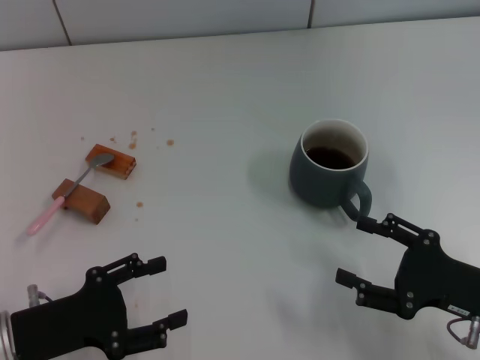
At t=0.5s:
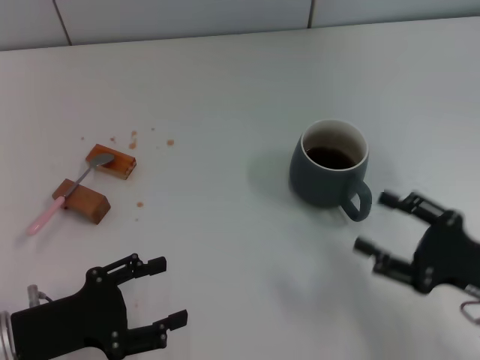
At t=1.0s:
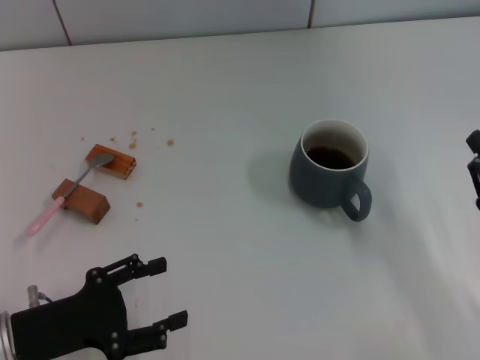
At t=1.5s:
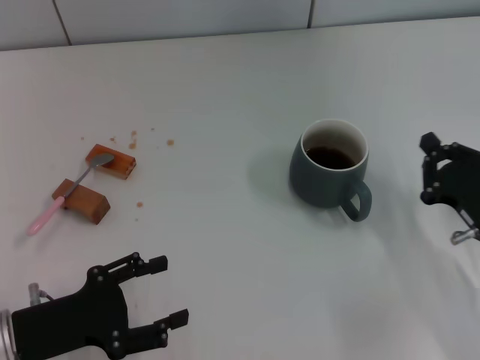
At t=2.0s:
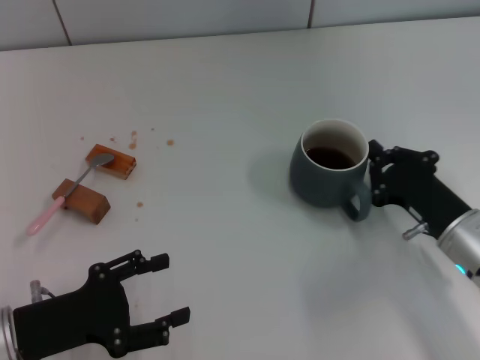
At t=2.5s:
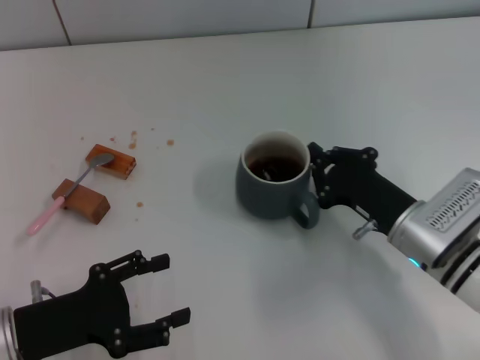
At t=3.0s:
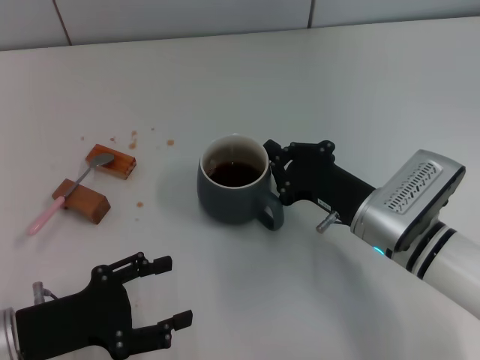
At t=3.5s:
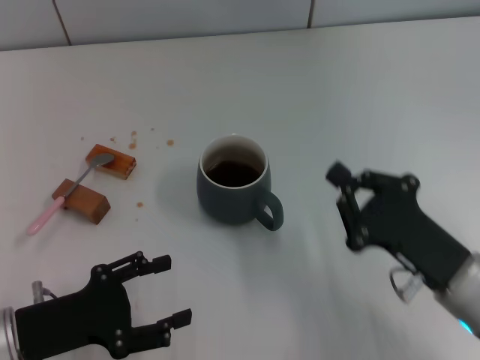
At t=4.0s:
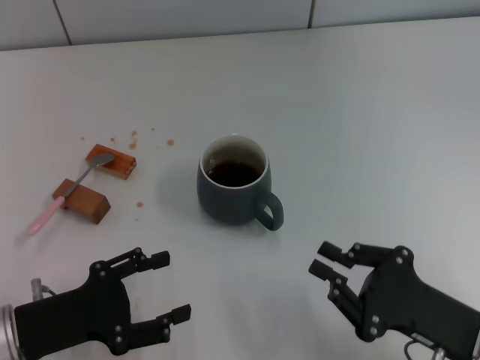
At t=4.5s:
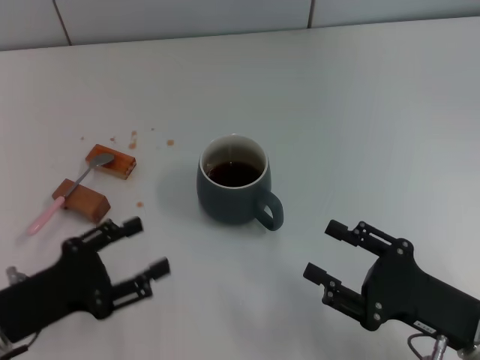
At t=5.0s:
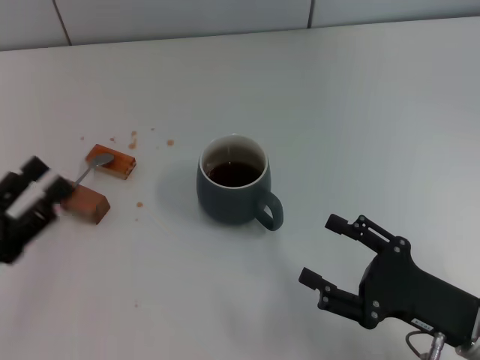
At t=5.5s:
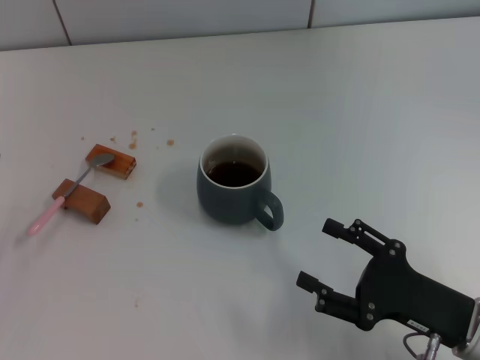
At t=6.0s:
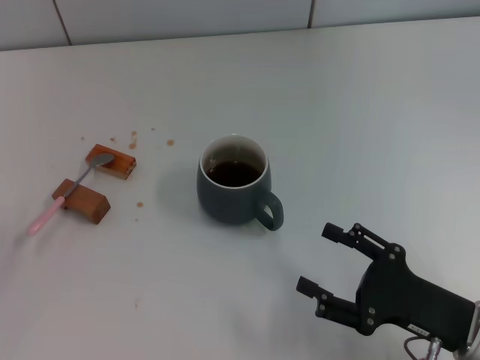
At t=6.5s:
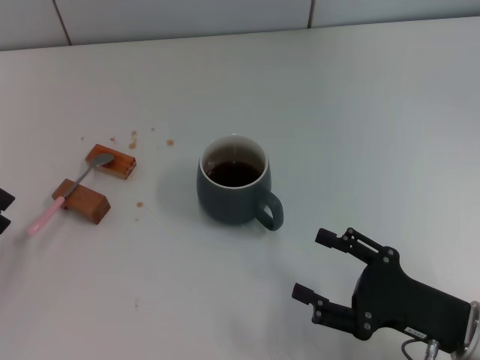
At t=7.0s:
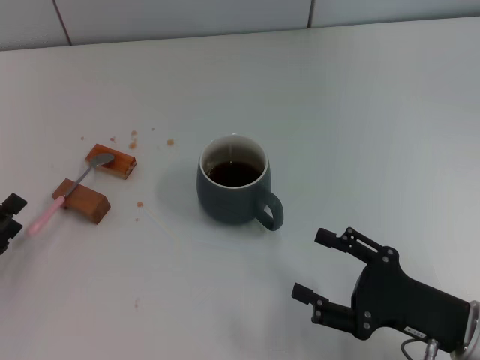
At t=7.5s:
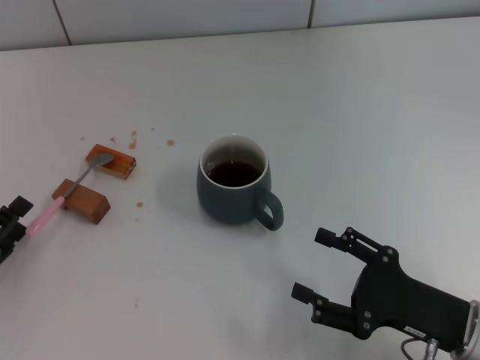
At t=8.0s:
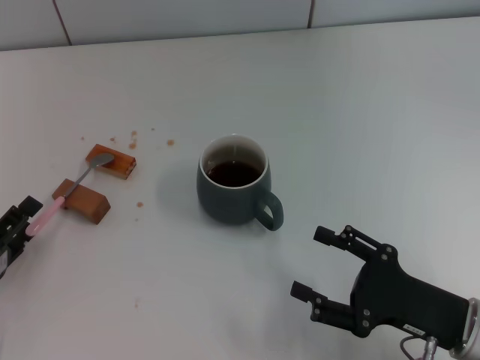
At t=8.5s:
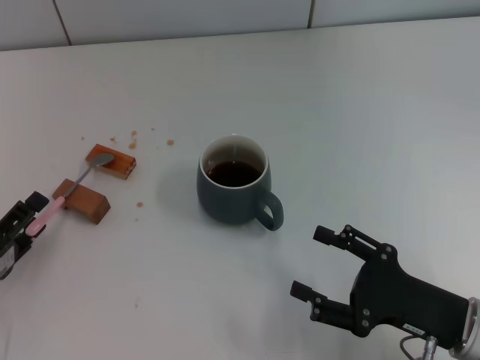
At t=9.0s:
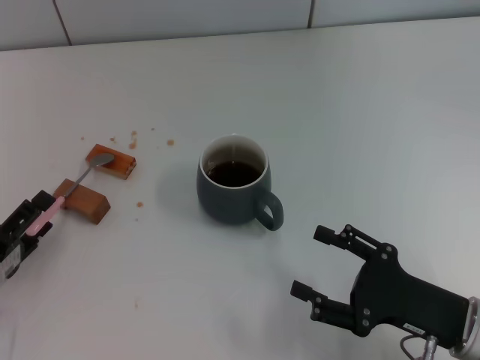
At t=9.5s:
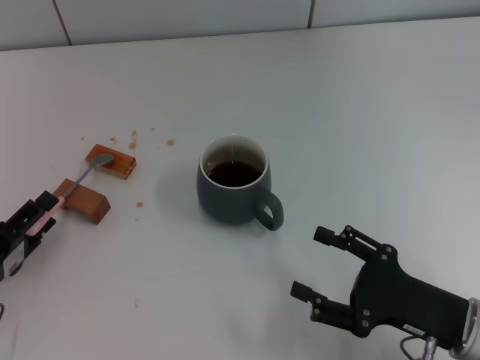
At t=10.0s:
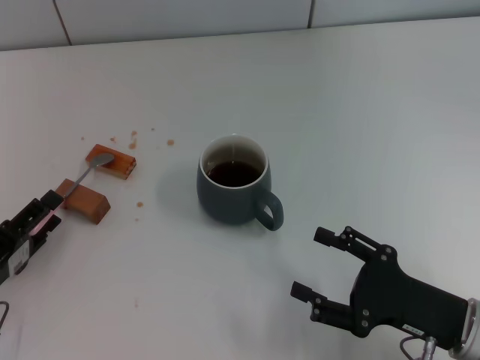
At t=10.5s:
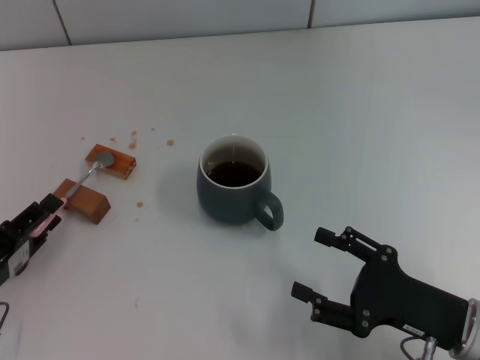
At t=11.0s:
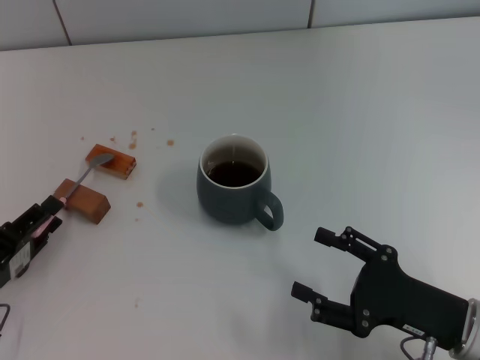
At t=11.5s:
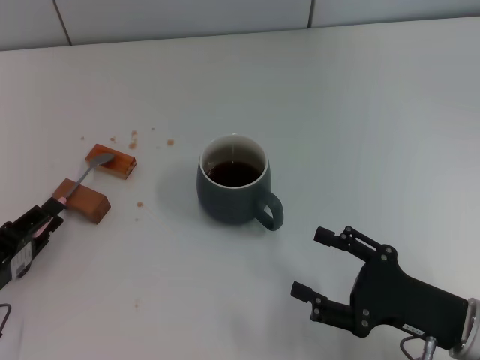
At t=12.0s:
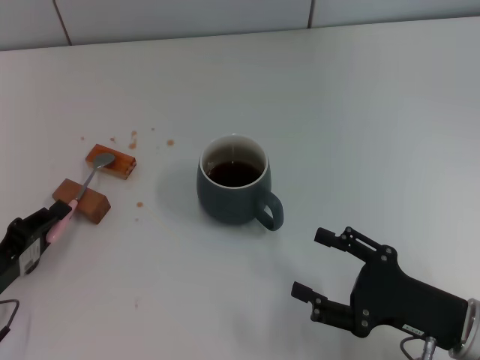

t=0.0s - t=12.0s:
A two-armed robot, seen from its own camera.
Task of the whole recording: Move the grey cup to the center, lift the pink spoon, stir it three times in the cup, and put the spoon into the cup.
Step, t=0.0s - t=3.0s: Move the cup with coffee to the center of view with the right gripper.
t=0.0s - t=2.0s: The right gripper is displaced forward by approximately 5 cm, and closes up.
t=2.0s - t=4.0s: The right gripper heads backward, covering approximately 10 cm.
t=4.0s - t=6.0s: The left gripper is displaced to the left by about 10 cm; the right gripper opens its fingers.
t=6.0s - t=10.0s: The grippers make only small movements.
t=10.0s - t=12.0s: The left gripper closes its fingers.

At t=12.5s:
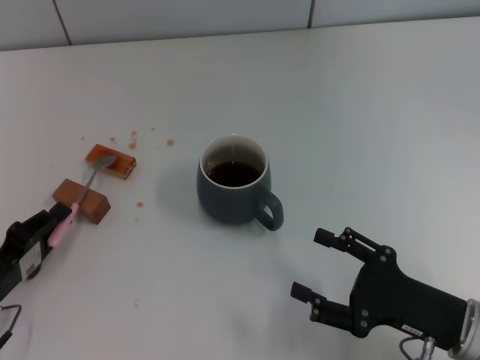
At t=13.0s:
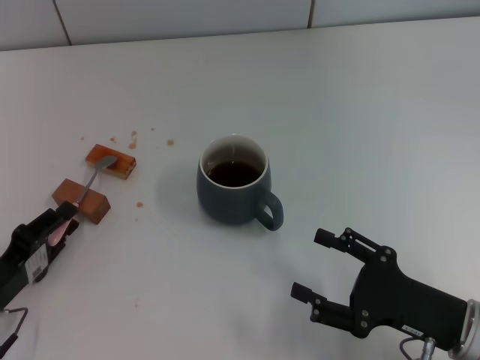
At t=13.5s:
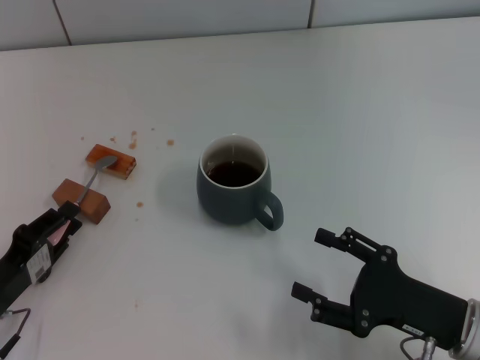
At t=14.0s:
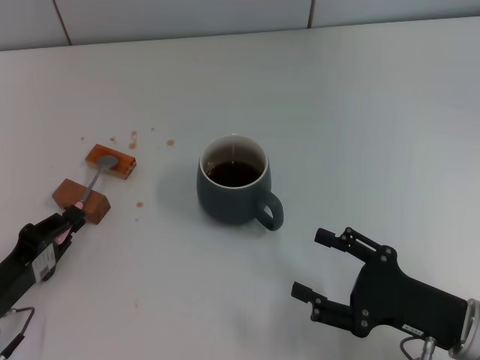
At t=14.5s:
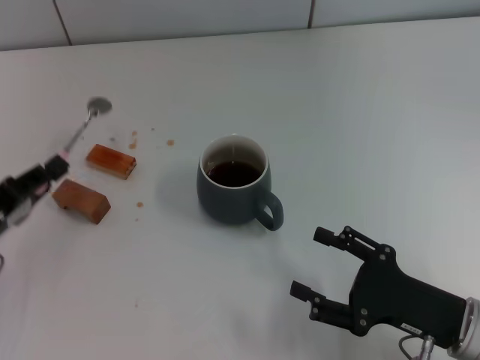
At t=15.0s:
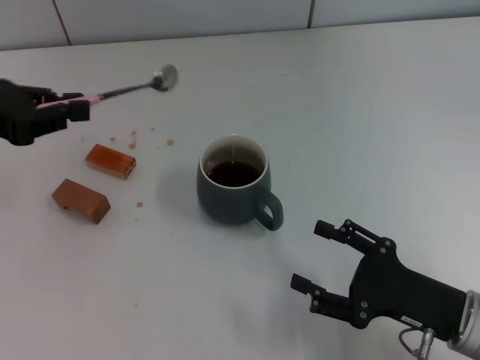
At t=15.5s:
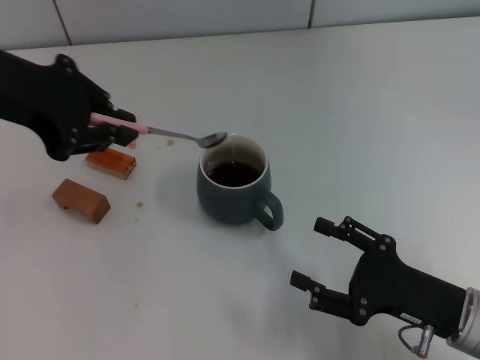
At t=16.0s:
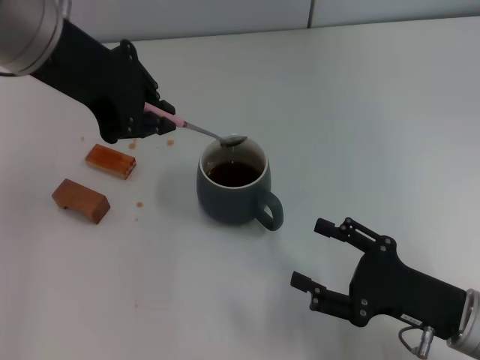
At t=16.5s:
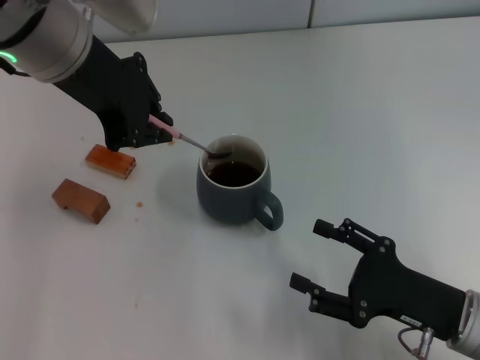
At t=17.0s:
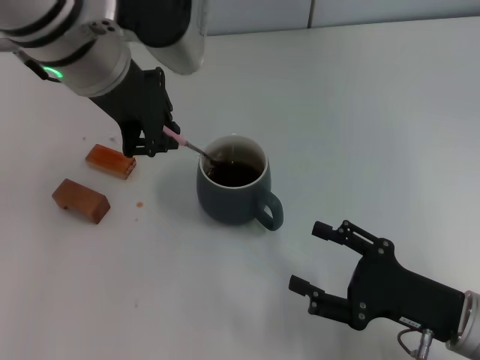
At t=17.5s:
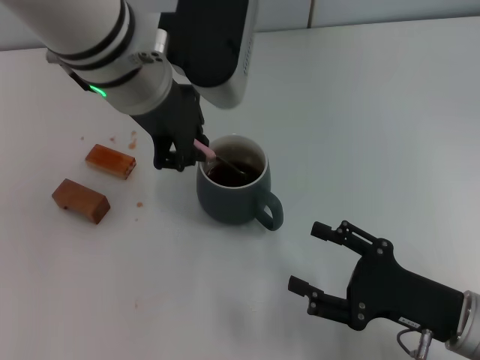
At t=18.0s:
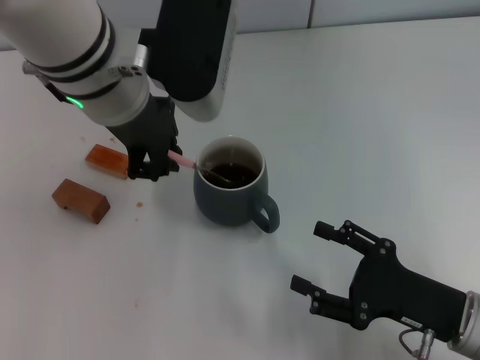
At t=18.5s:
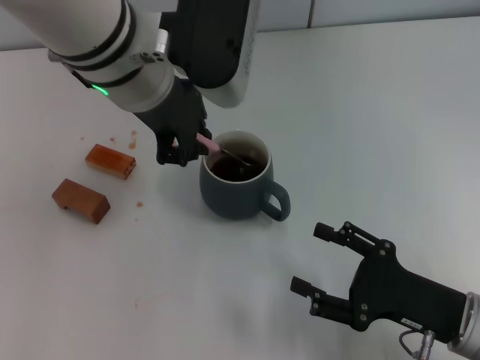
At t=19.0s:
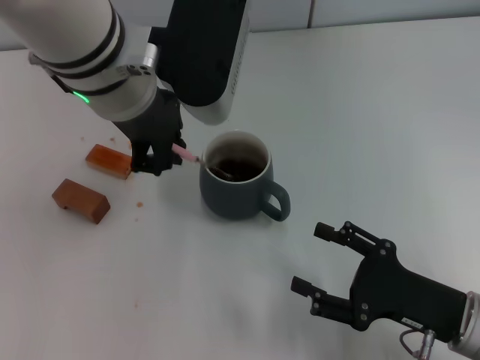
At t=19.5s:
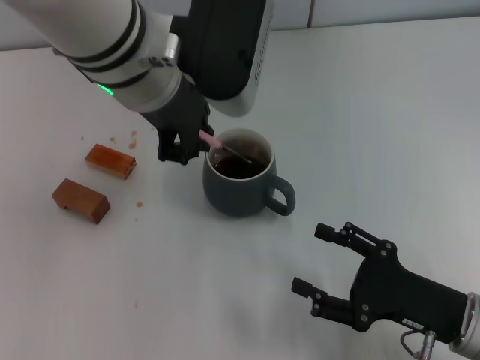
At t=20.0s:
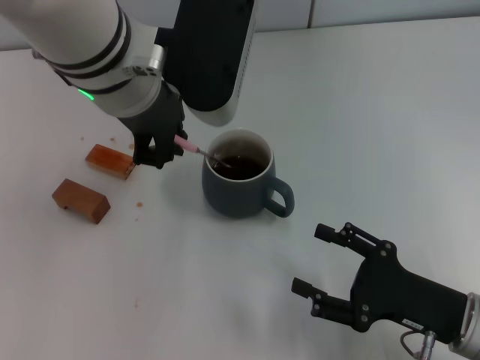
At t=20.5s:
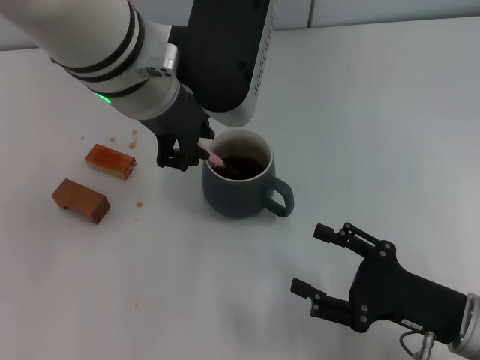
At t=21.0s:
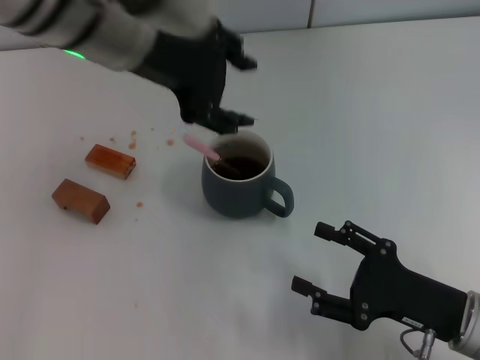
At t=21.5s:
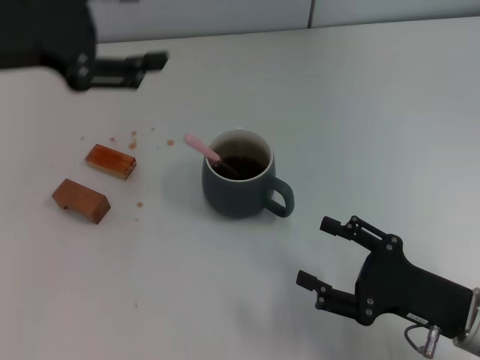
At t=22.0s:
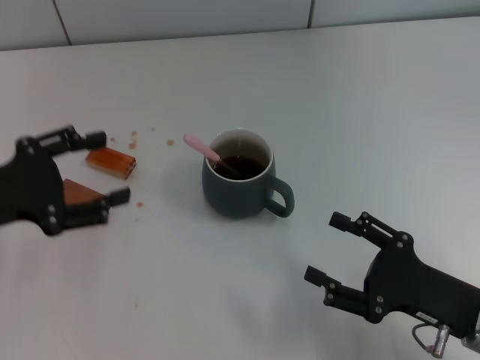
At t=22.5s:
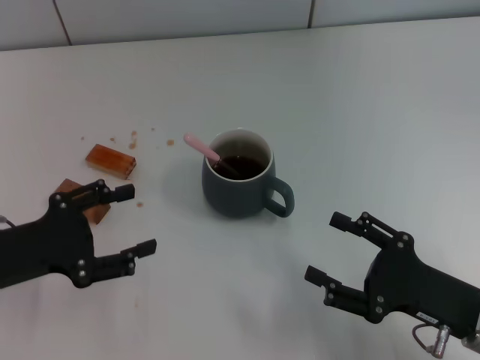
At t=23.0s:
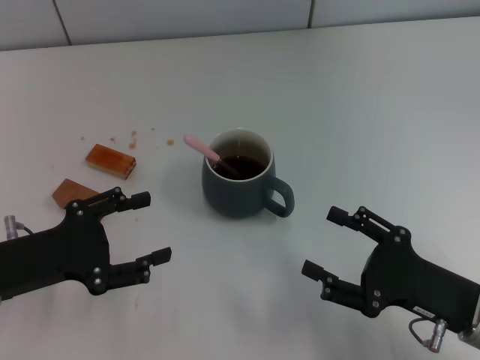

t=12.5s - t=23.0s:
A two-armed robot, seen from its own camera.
Task of the whole recording: Move the grey cup to the center, lift the pink spoon, stir it three times in the cup, and put the spoon into the cup.
Step, t=14.5s - t=20.5s: Stir the coffee in the cup with the left gripper.
t=12.5s - t=14.5s: The left gripper shifts approximately 5 cm upward.
t=14.5s - t=16.5s: The left gripper moves upward, to the right and forward, approximately 30 cm.
t=16.5s - t=19.0s: The left gripper changes place by some 5 cm.
t=19.0s - t=21.0s: The left gripper opens up.
t=21.0s - t=23.0s: The left gripper shifts approximately 30 cm downward, to the left and backward, and opens.

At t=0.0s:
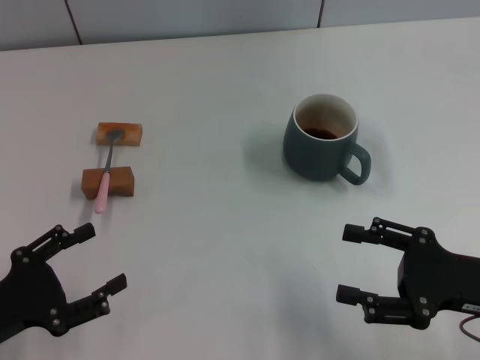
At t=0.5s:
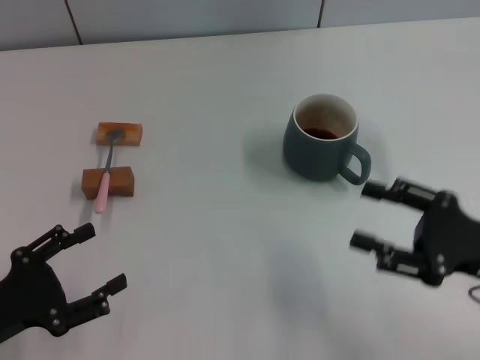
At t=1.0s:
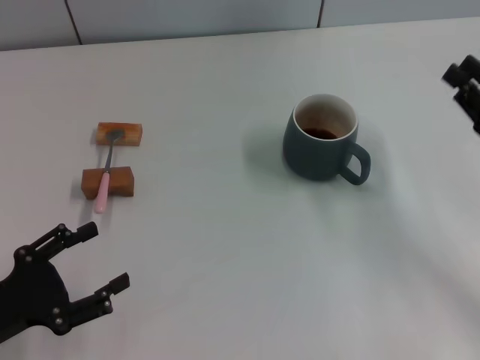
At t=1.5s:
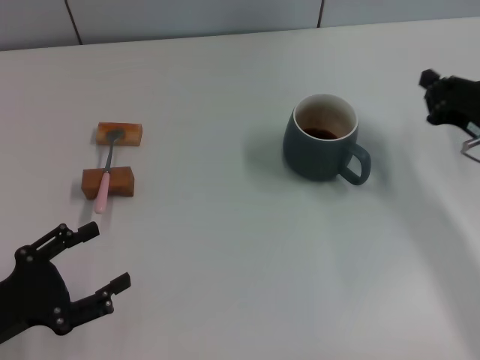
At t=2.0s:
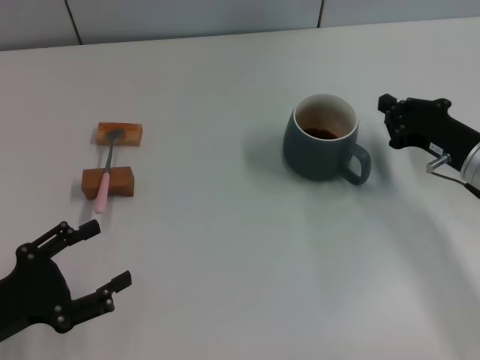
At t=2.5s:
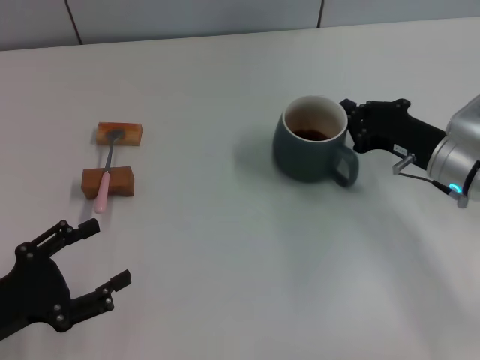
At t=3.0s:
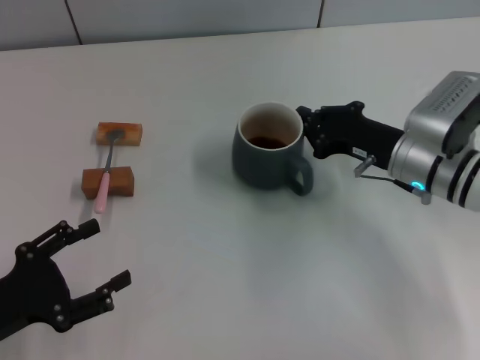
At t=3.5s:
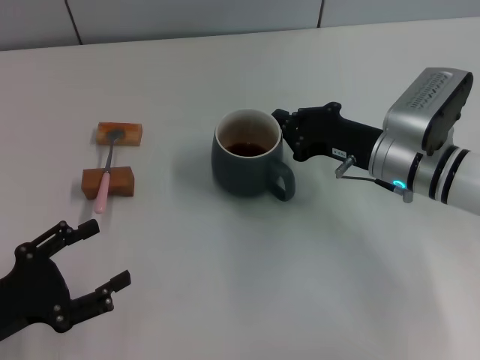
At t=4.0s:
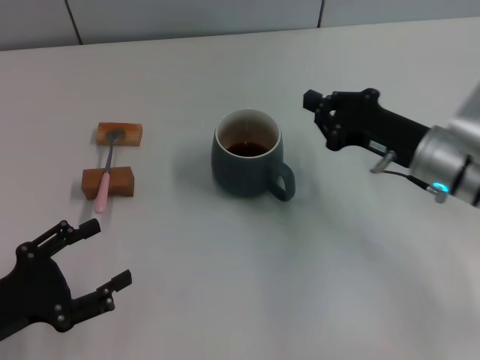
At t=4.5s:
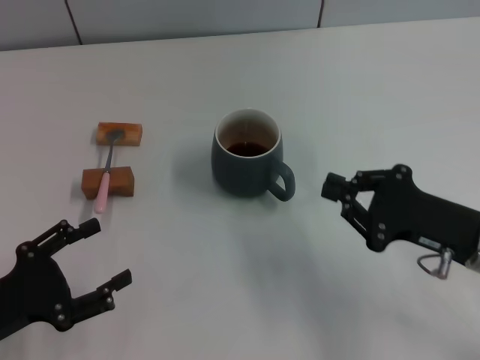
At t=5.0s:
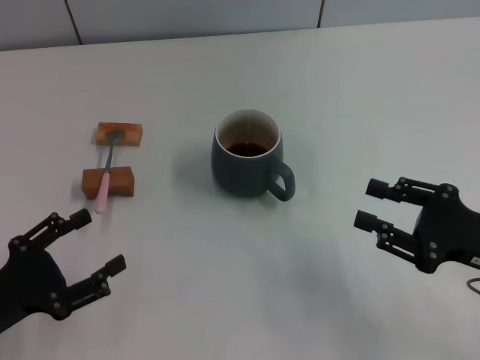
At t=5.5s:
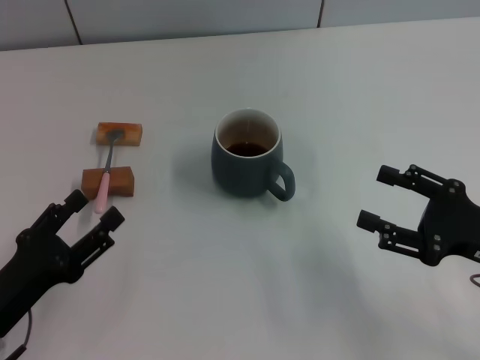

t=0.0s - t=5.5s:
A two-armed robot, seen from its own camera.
Task of the whole recording: Move the grey cup to the center, lift the pink spoon, stir it three times in the cup, and put the spoon into the cup.
Step, t=0.0s - t=3.5s: Move the cup with coffee to the center of view with the right gripper.
t=0.0s - t=2.0s: The right gripper is displaced forward by some 15 cm, and closes up.
t=2.0s - t=3.5s: The right gripper shifts approximately 10 cm to the left.
t=3.5s - t=5.5s: The right gripper heads backward and to the right, covering approximately 15 cm, and opens its fingers.
